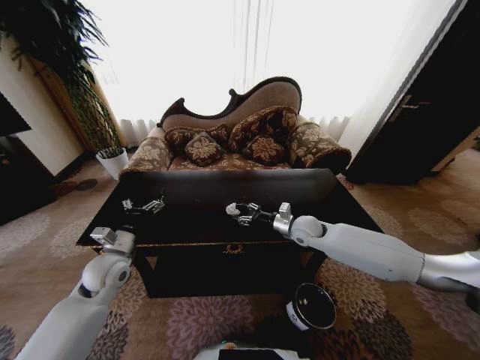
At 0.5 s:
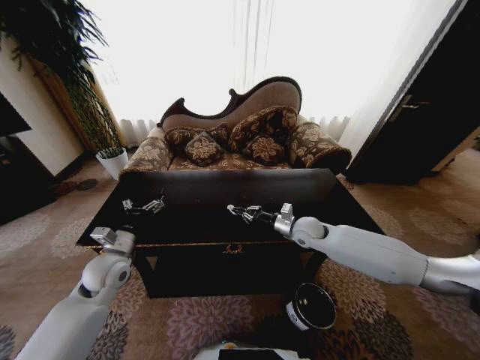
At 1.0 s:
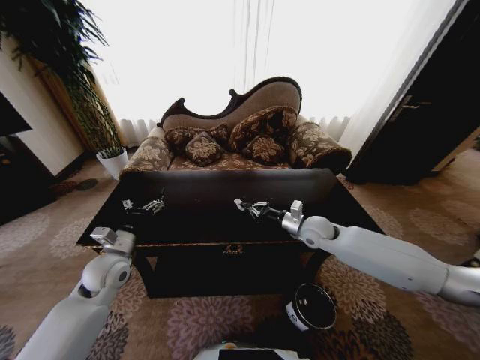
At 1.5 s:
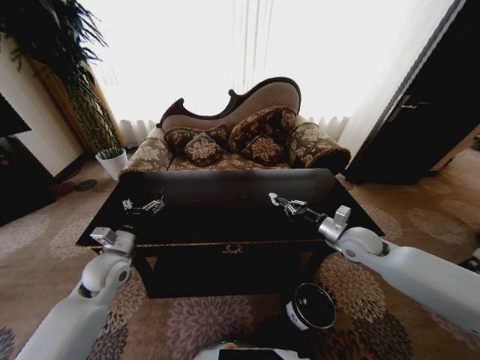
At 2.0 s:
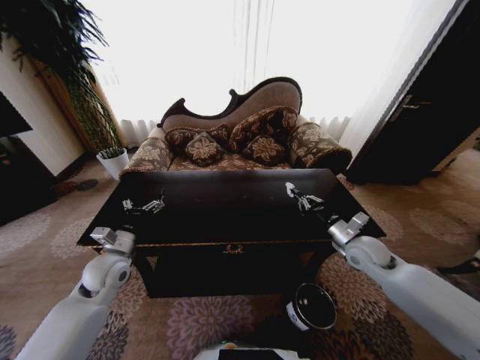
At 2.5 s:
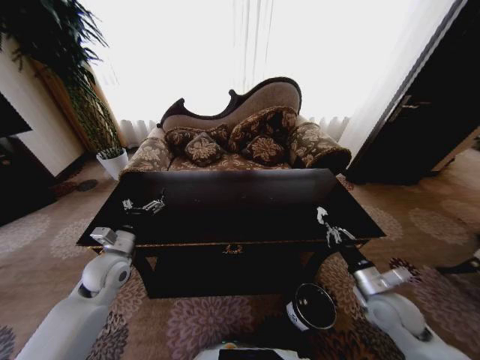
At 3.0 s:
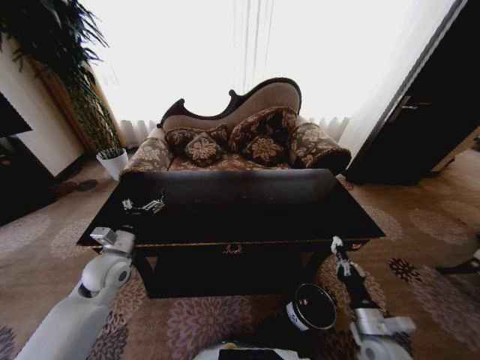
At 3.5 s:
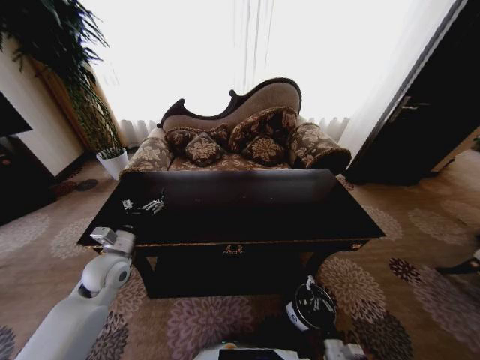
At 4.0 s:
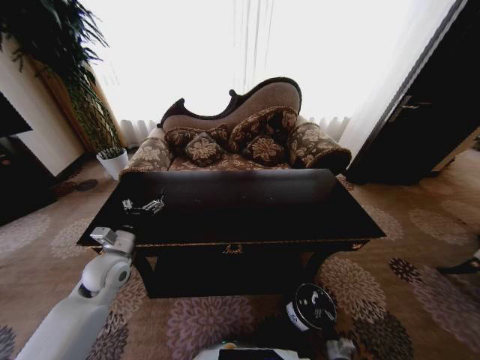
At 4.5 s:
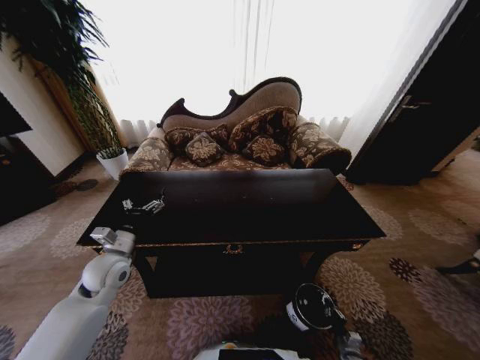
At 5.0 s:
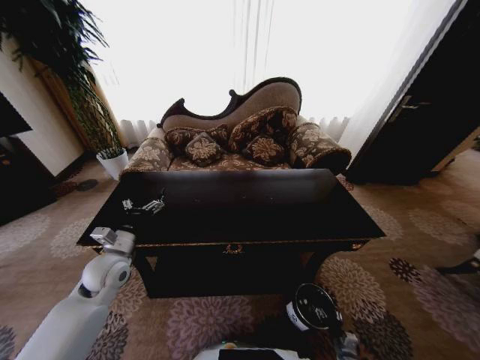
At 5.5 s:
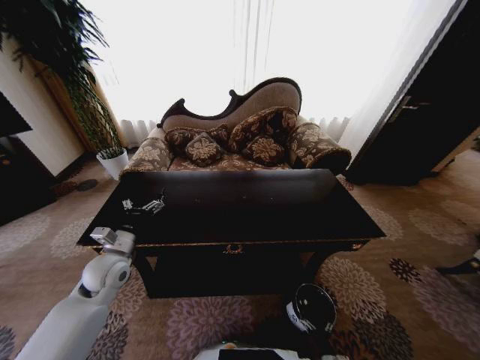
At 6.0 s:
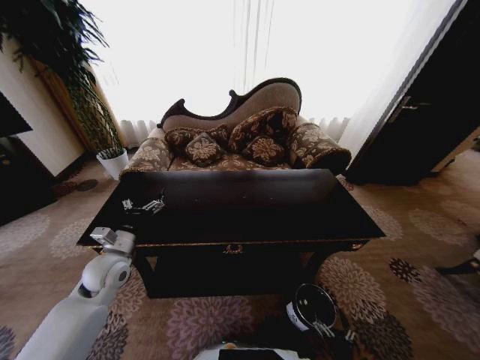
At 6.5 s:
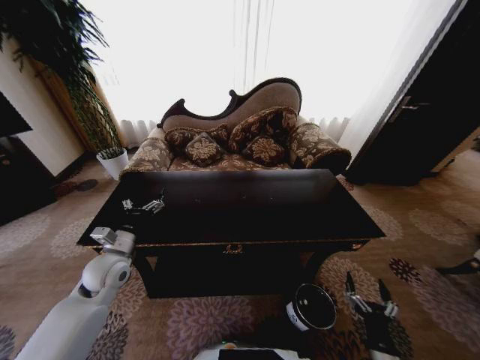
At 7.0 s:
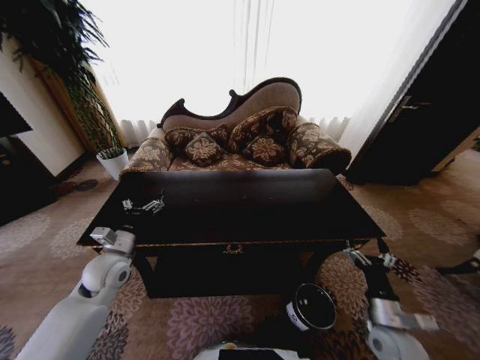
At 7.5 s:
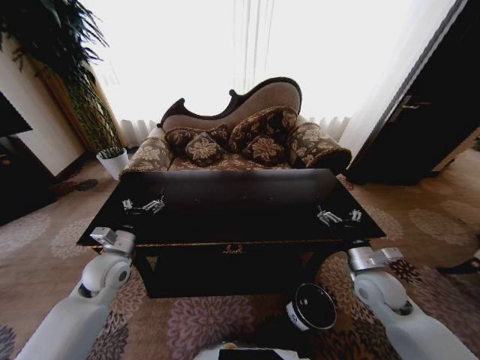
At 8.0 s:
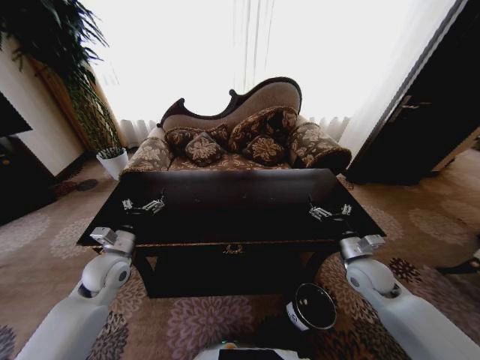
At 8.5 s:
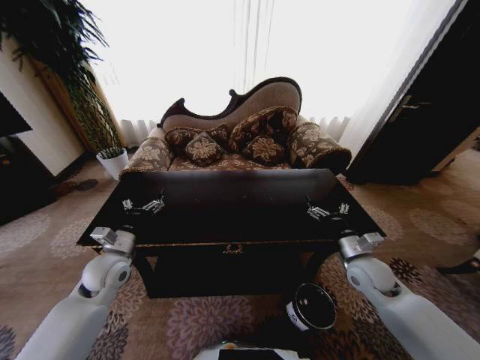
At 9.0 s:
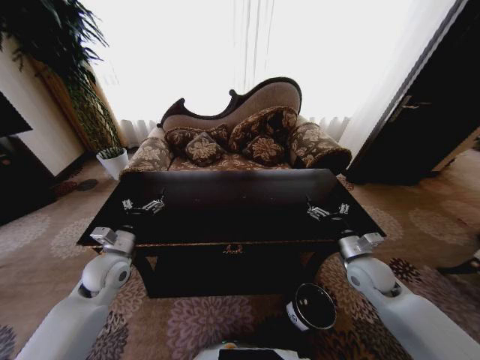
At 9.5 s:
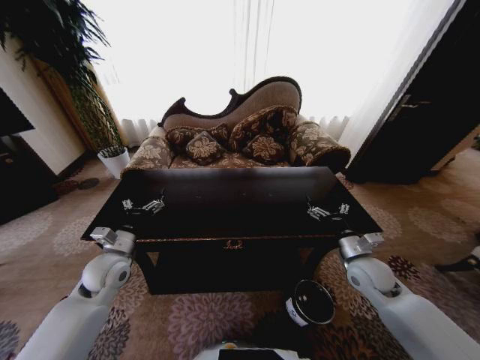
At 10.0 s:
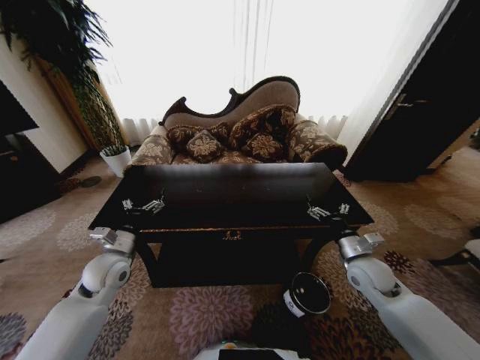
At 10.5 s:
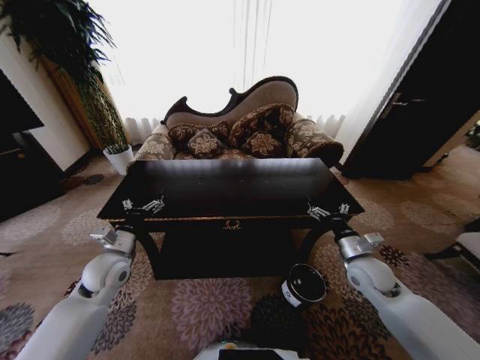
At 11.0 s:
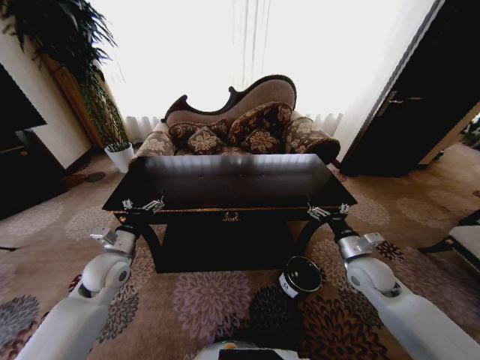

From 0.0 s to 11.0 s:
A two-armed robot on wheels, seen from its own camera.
Task of the whole recording: Move to the front of the table and place the trash on the table into the trash bin.
From 0.0 s to 2.0 s: The right gripper shifts roughly 15 cm to the right and backward, and closes up.
From 2.0 s to 3.5 s: The right gripper shifts roughly 40 cm downward and backward.
From 5.5 s to 7.5 s: The right gripper travels upward and forward by approximately 40 cm.
From 7.5 s to 9.0 s: The grippers stay close to where they were, moving slightly.
